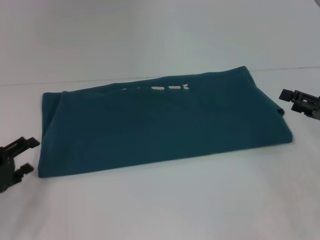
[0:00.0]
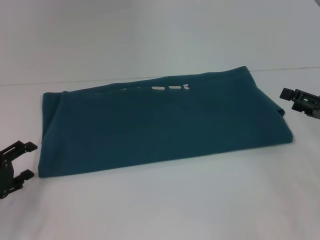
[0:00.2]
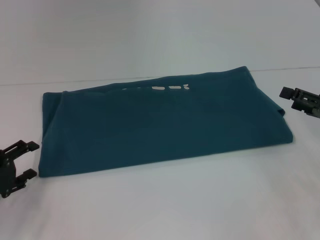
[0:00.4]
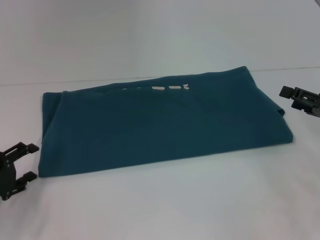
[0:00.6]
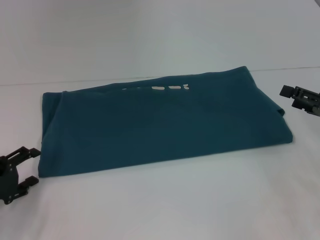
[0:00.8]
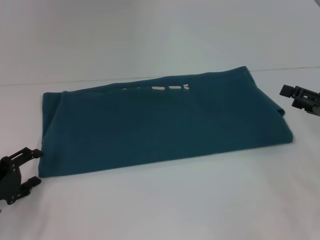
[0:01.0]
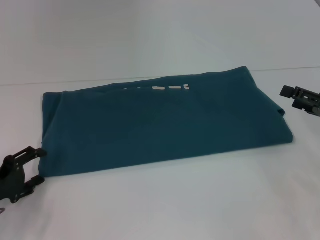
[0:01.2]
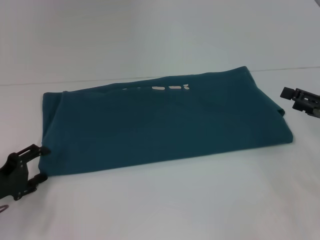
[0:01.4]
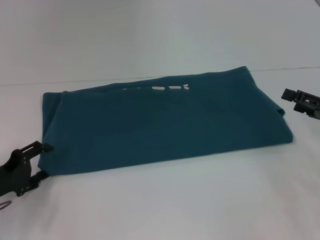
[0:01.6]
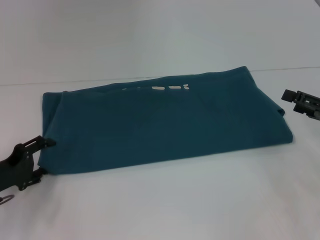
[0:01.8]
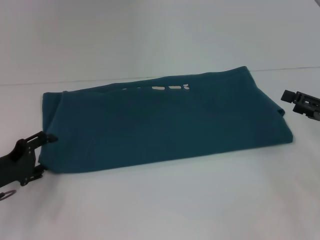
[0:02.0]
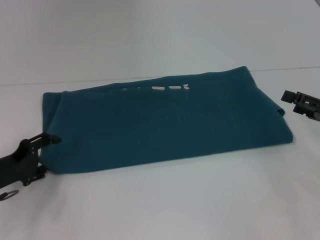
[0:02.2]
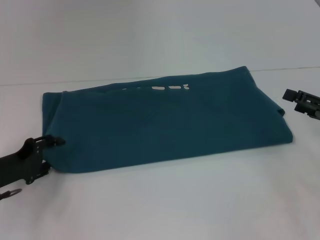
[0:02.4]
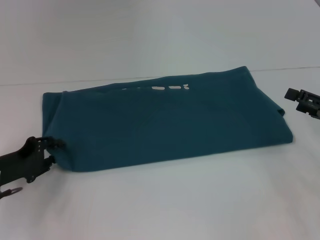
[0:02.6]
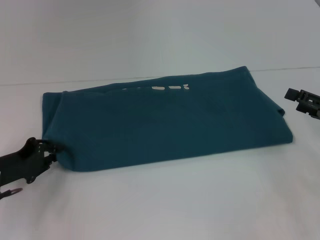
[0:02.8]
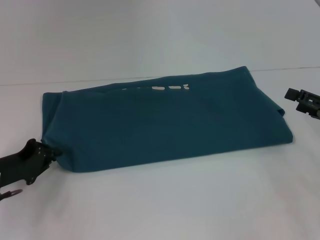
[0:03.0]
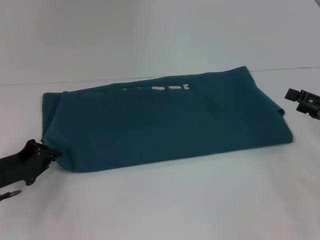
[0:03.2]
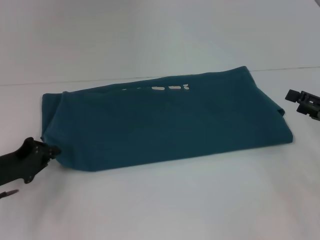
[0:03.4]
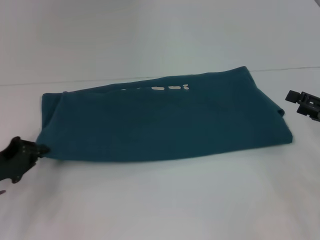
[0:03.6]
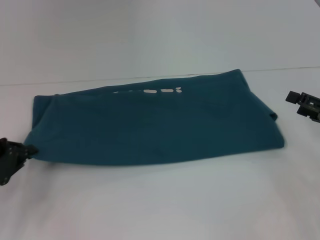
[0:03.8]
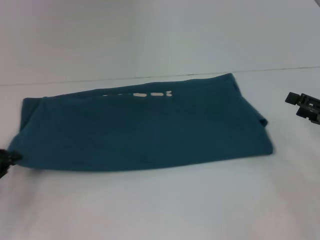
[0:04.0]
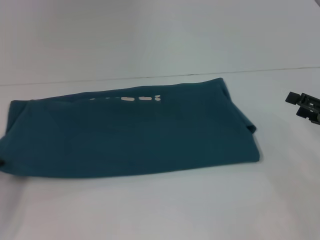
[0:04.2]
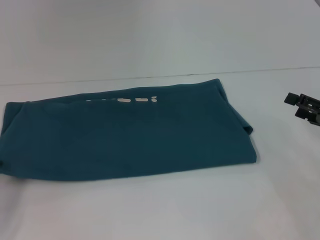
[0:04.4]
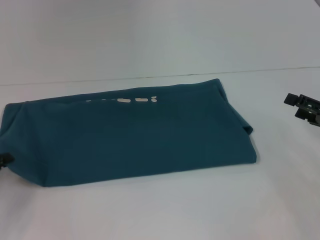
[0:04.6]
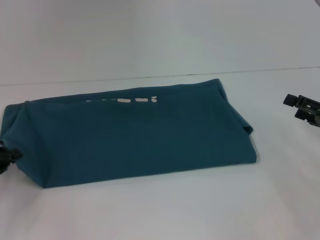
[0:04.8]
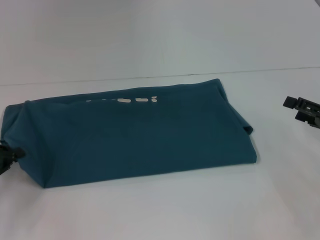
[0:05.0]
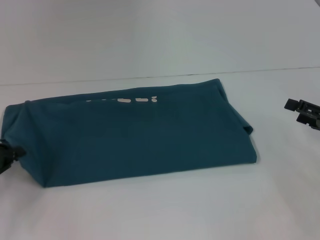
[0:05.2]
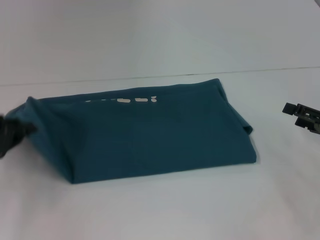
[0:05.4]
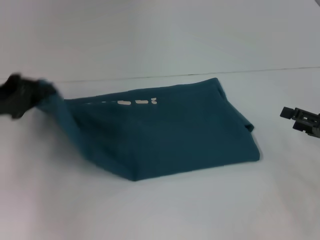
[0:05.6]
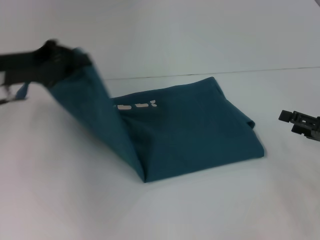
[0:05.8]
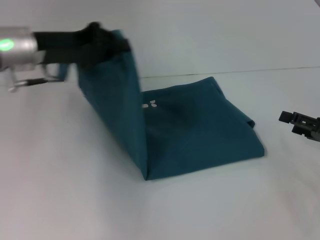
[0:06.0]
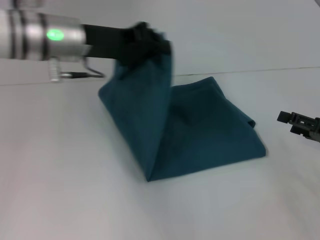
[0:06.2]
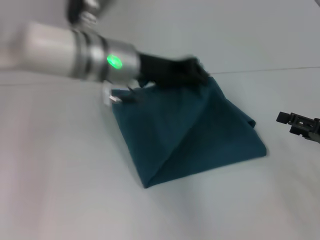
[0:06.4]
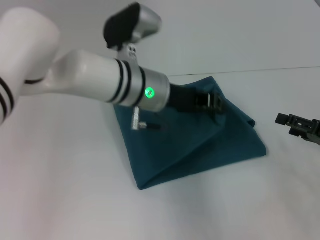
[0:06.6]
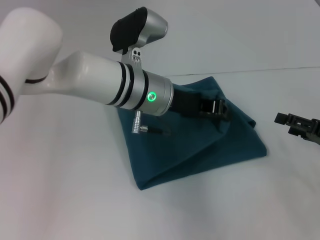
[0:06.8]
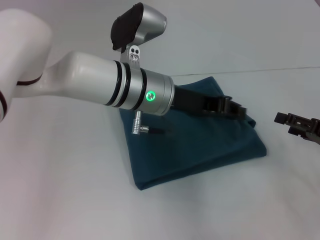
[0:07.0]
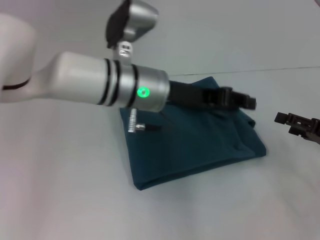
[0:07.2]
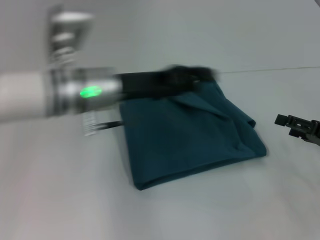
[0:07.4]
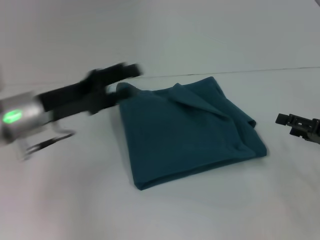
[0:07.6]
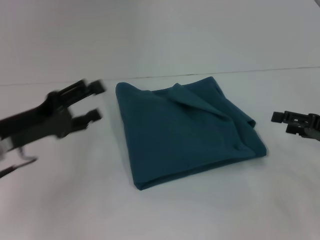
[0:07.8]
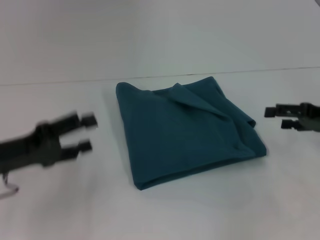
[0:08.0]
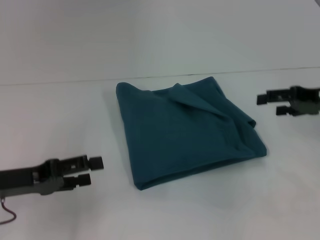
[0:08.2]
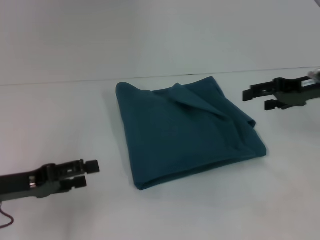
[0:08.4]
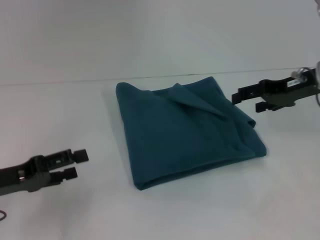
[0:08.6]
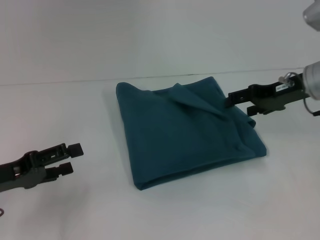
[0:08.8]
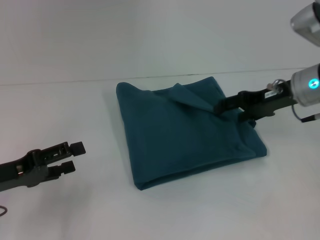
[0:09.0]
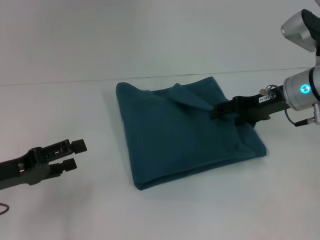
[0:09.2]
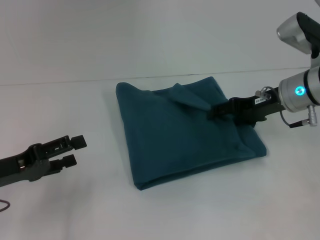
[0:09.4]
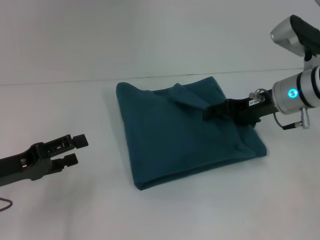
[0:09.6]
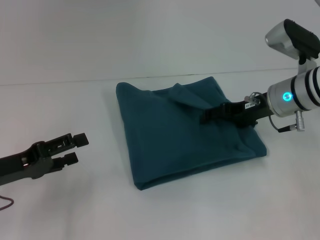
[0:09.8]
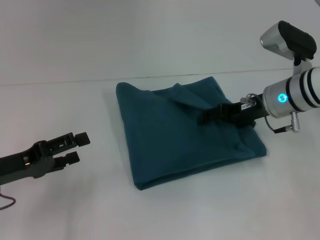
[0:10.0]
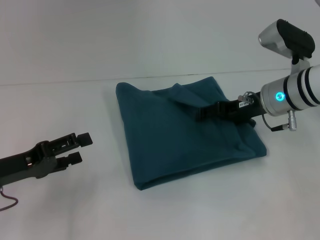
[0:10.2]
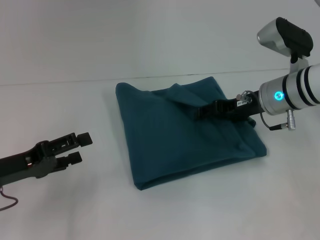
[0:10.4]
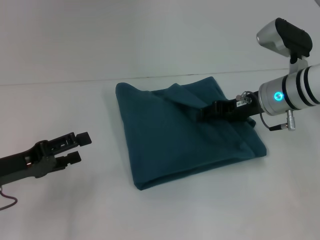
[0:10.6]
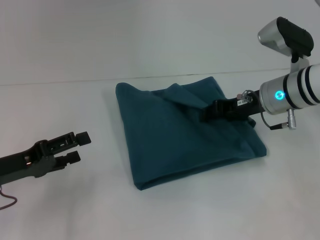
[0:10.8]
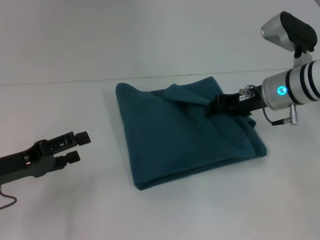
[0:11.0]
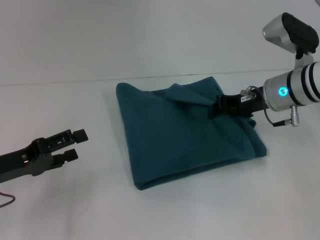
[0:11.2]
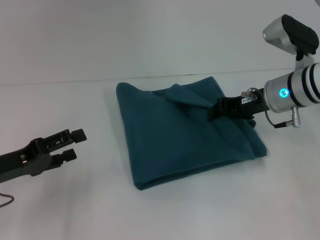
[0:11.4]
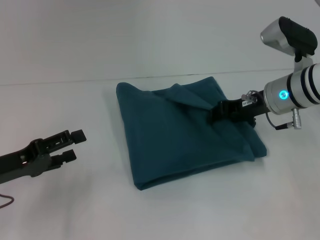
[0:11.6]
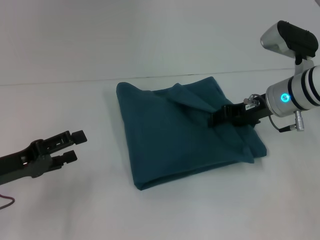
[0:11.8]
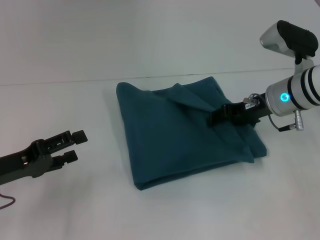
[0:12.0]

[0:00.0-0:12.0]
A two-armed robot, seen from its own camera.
Step, 0:00.0 to 0:07.0: Fold the clothes to the left.
0:00.0 to 0:01.6: There are only small adjustments of the grippers.
0:01.6 to 0:03.0: The left gripper closes up.
0:03.0 to 0:04.4: The left gripper is displaced to the left by roughly 10 cm.
0:04.4 to 0:06.0: The left gripper shifts some 25 cm to the right, upward and forward.
0:06.0 to 0:07.6: The left gripper heads downward and backward, covering roughly 10 cm, moves about 15 cm to the right and comes back, and opens its fingers.
0:07.6 to 0:09.0: The right gripper shifts roughly 15 cm forward, to the left and upward, while the left gripper moves to the left and backward, approximately 10 cm, and opens up.
0:09.0 to 0:10.4: The grippers make only small movements.
0:10.4 to 0:12.0: The right gripper closes up.

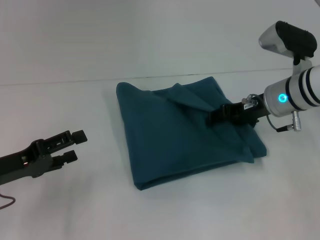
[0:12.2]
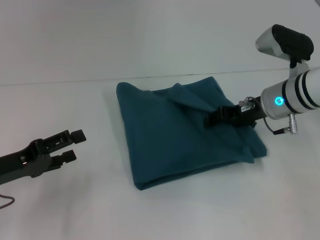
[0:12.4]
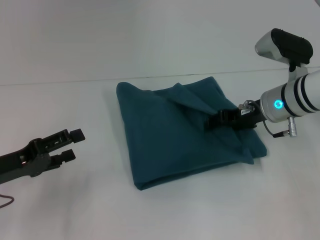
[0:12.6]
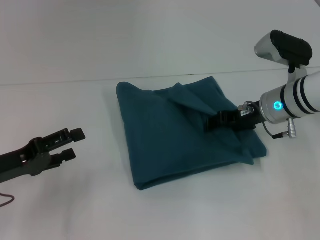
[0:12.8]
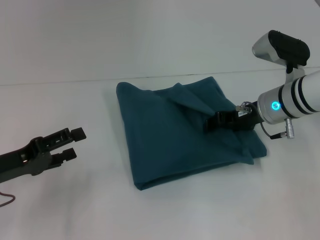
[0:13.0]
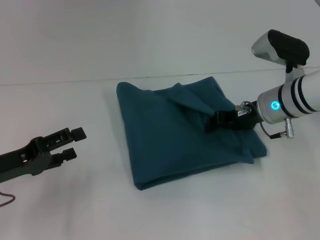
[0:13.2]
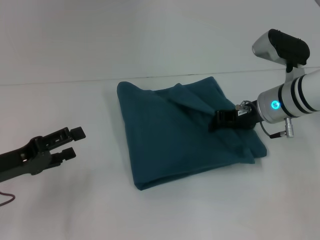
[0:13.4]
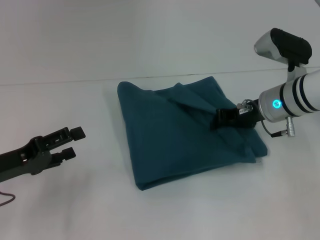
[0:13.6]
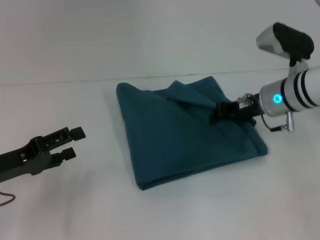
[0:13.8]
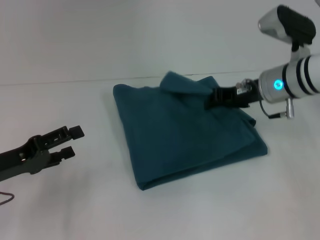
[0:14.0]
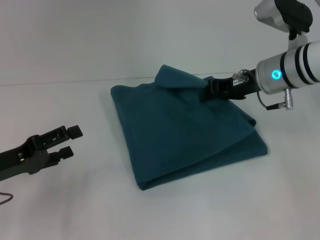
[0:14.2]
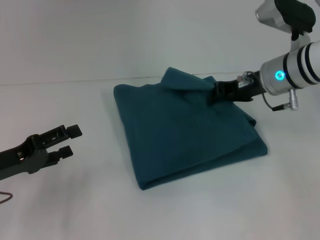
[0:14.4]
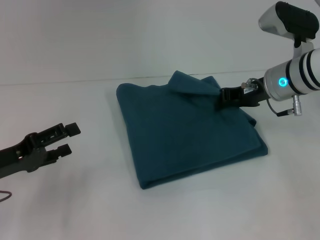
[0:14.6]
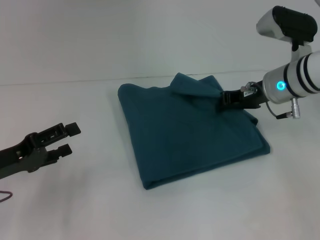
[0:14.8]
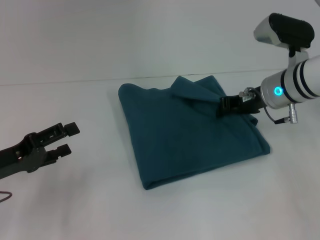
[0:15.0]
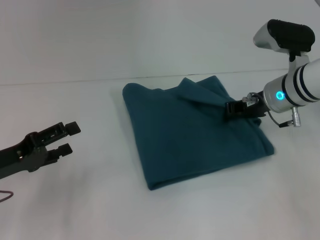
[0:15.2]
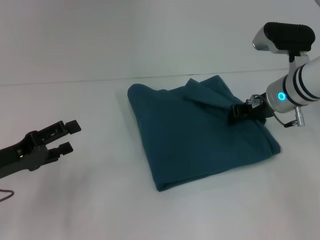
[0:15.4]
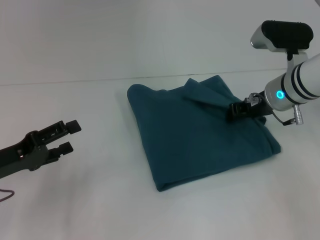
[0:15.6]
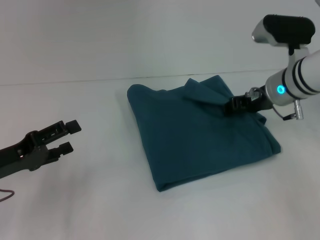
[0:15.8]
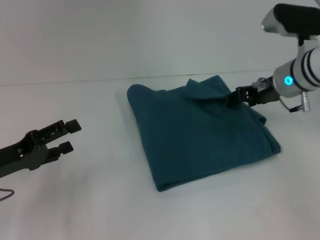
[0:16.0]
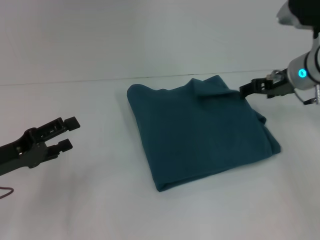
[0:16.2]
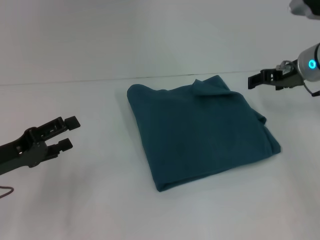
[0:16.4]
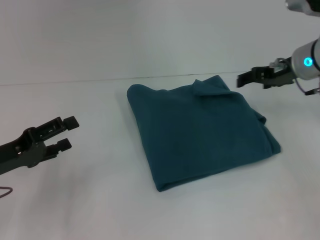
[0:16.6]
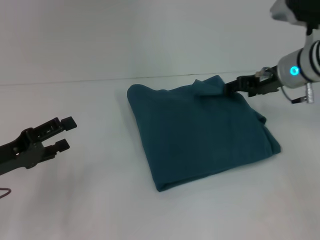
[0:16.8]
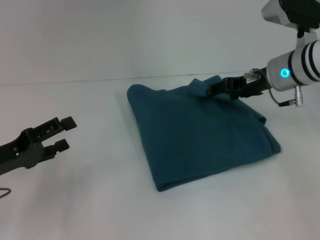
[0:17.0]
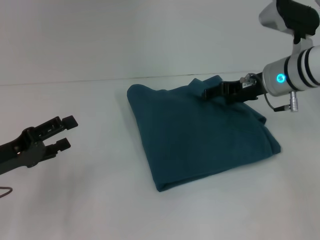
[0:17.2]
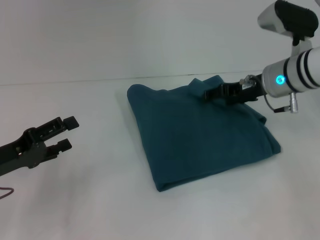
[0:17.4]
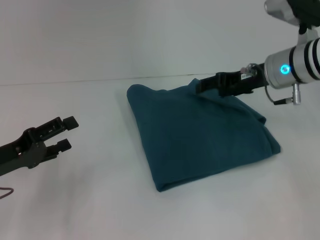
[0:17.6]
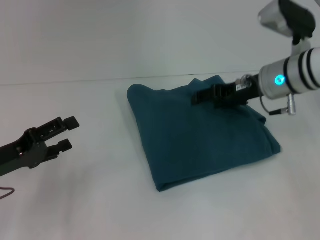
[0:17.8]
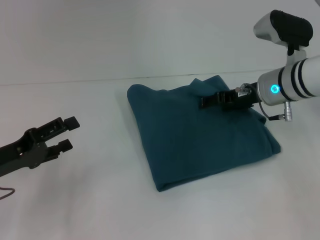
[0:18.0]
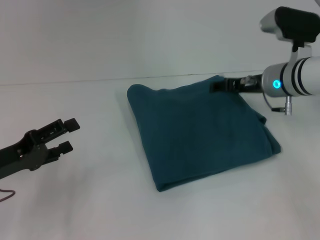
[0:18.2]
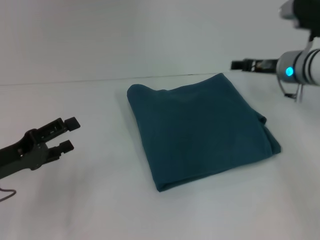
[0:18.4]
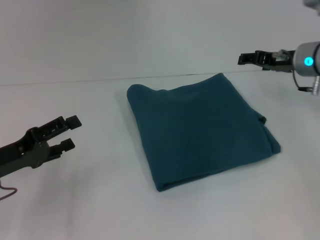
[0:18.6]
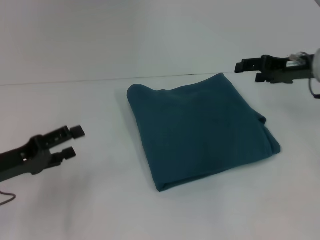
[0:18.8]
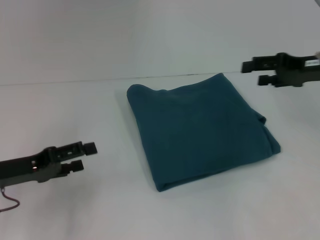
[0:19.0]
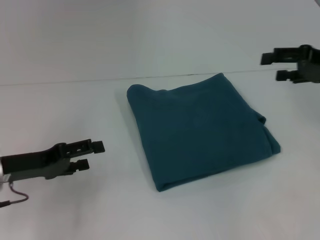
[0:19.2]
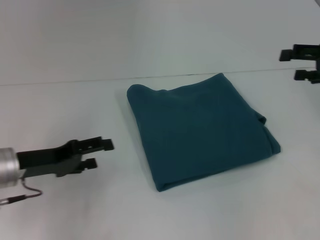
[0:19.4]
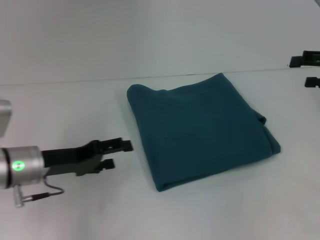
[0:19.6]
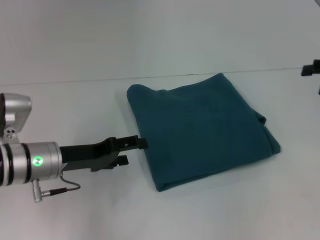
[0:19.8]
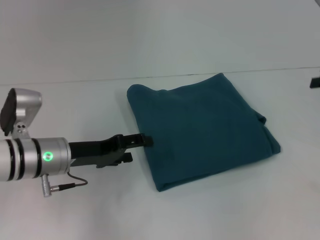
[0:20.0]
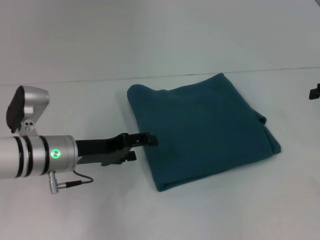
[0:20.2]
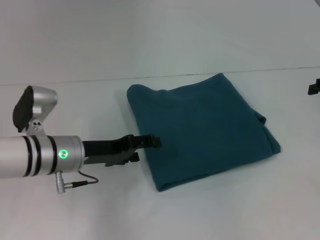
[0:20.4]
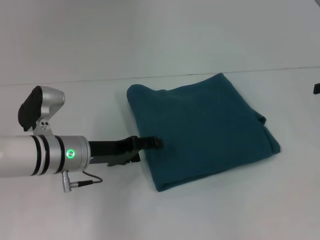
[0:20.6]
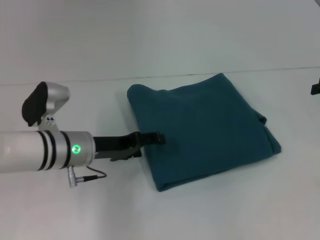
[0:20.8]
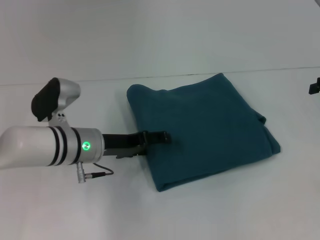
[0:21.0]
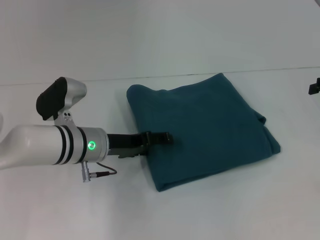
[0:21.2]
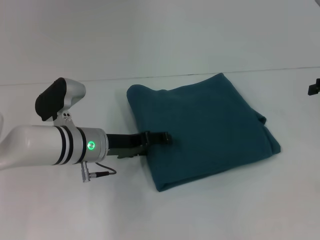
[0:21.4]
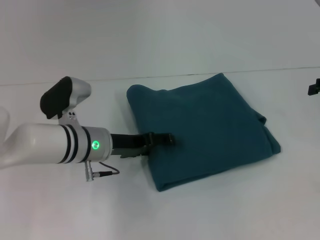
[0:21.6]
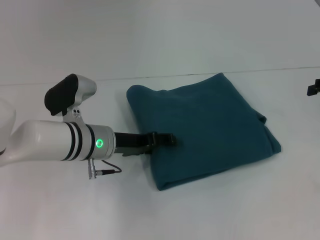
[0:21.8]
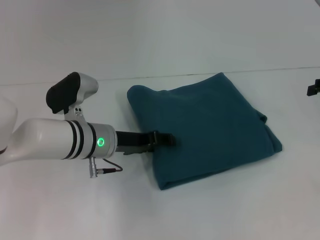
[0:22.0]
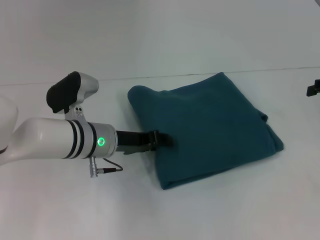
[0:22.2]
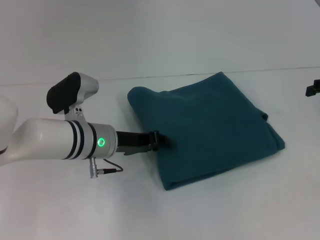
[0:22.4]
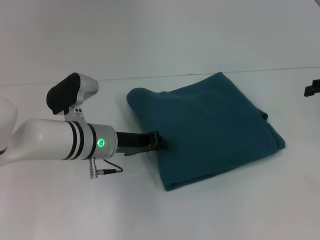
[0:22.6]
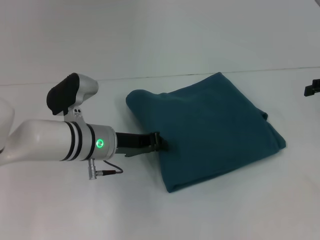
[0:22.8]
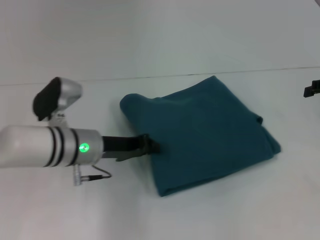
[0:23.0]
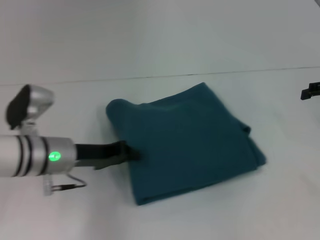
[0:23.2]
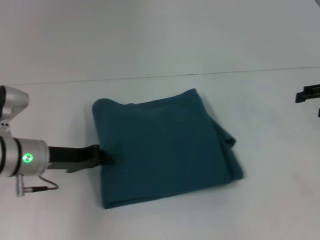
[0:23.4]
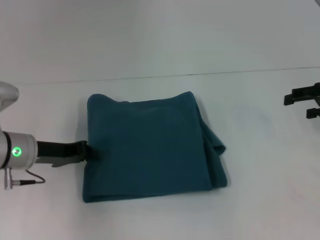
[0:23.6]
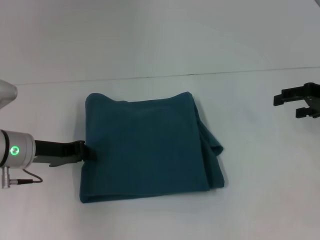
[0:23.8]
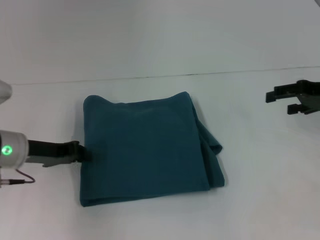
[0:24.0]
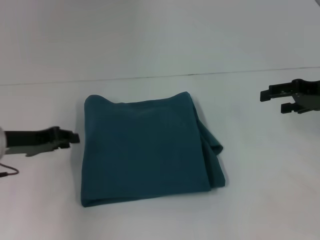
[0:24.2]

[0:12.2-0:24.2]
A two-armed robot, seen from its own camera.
0:12.2 to 0:13.8: The right gripper closes its fingers.
0:13.8 to 0:15.2: The grippers stay close to where they were, moving slightly.
0:15.2 to 0:16.6: The right gripper changes place by roughly 5 cm, and opens up.
0:16.6 to 0:18.2: The right gripper moves roughly 5 cm.
0:18.2 to 0:19.8: The right gripper heads to the right, covering some 20 cm; the left gripper travels to the right by about 10 cm.
0:19.8 to 0:21.2: The left gripper goes roughly 5 cm to the right.
0:21.2 to 0:22.6: The left gripper closes up.
0:22.6 to 0:24.2: The left gripper travels to the left by about 15 cm. The right gripper heads to the left, covering some 5 cm.
